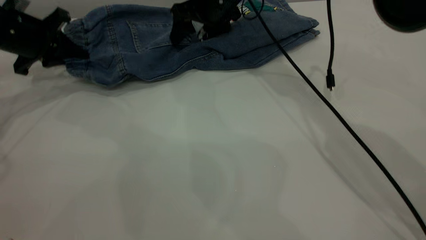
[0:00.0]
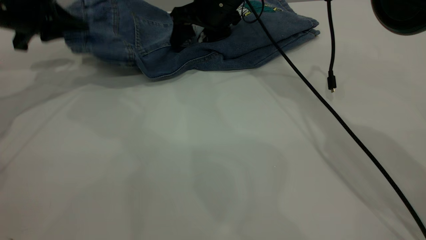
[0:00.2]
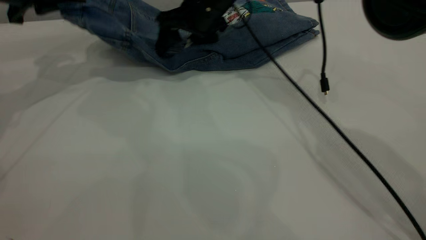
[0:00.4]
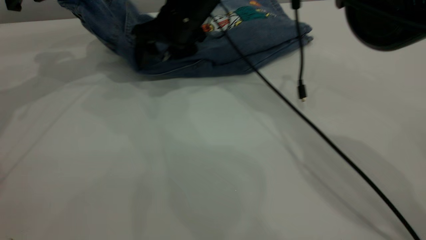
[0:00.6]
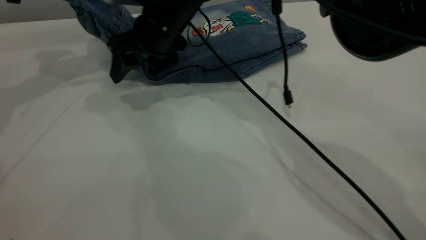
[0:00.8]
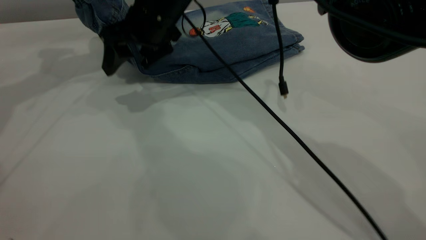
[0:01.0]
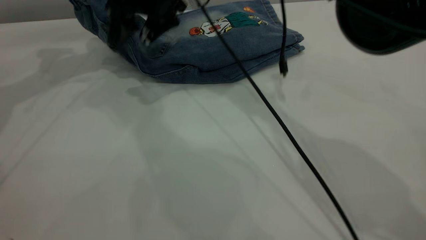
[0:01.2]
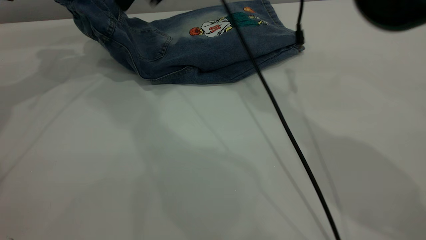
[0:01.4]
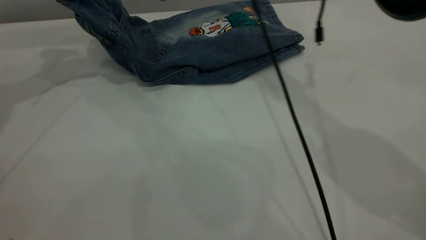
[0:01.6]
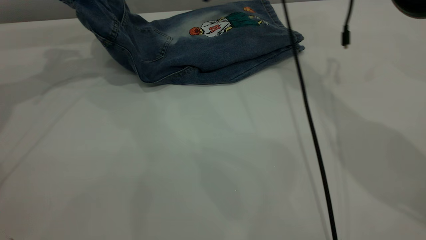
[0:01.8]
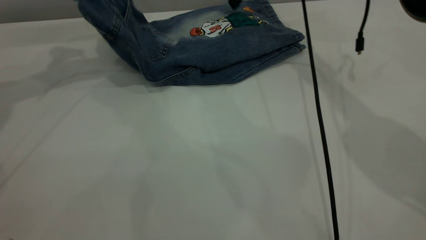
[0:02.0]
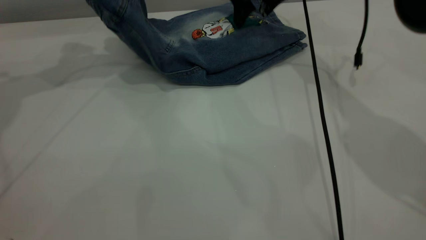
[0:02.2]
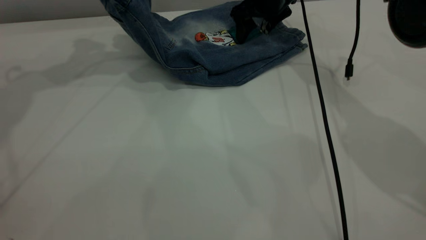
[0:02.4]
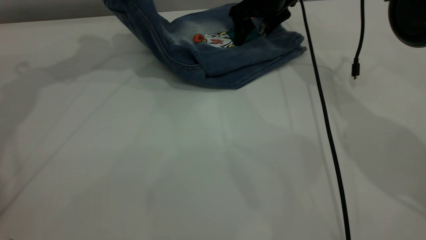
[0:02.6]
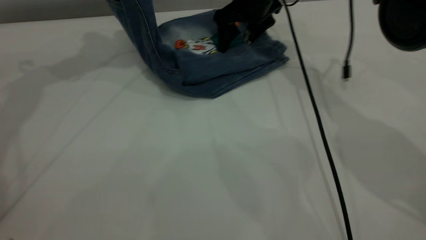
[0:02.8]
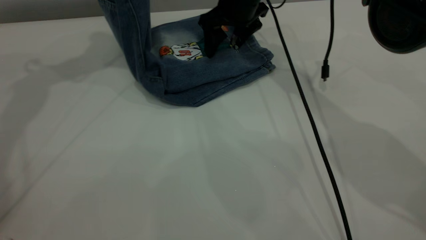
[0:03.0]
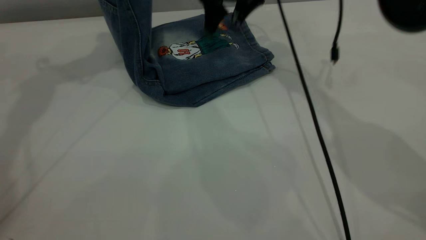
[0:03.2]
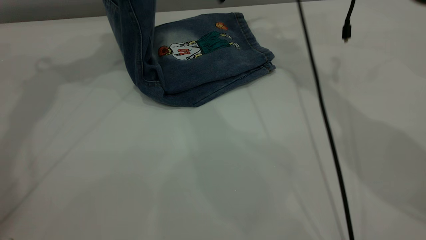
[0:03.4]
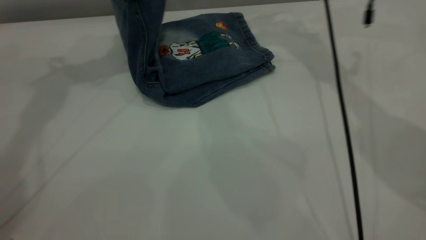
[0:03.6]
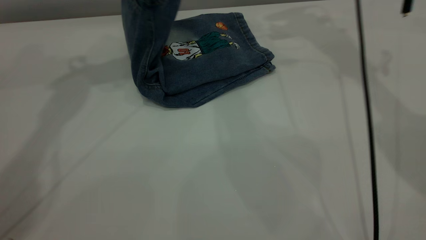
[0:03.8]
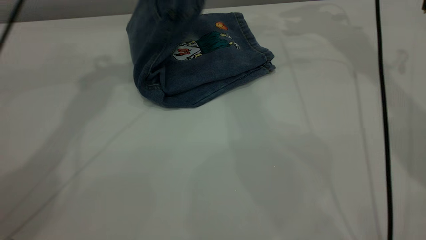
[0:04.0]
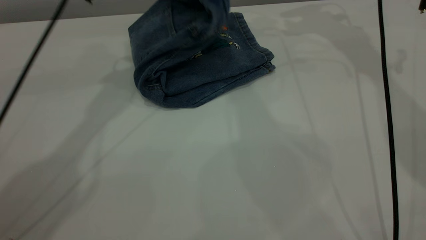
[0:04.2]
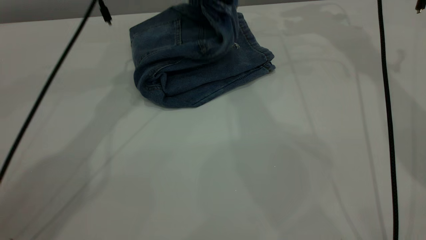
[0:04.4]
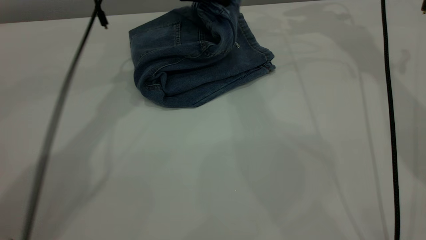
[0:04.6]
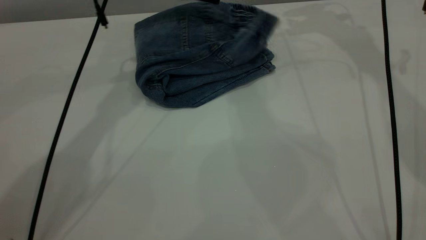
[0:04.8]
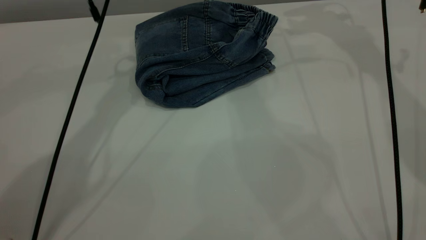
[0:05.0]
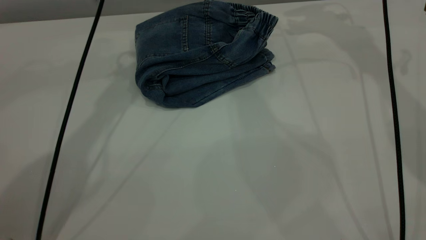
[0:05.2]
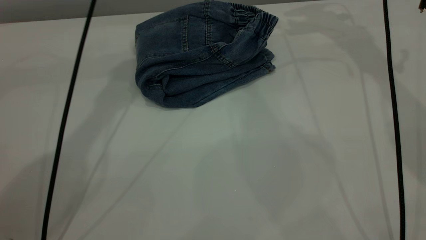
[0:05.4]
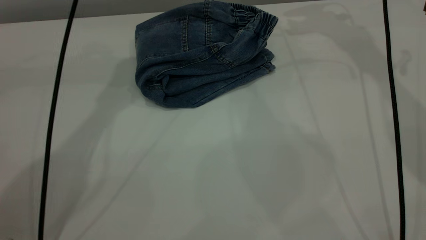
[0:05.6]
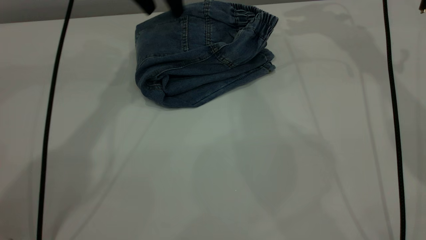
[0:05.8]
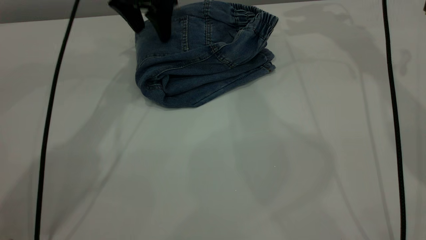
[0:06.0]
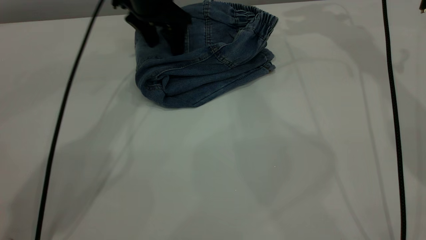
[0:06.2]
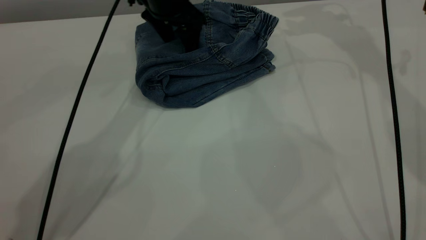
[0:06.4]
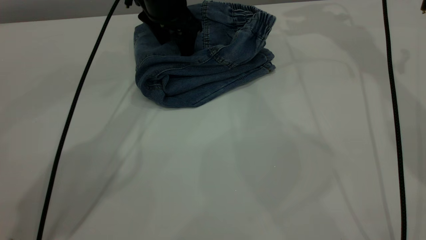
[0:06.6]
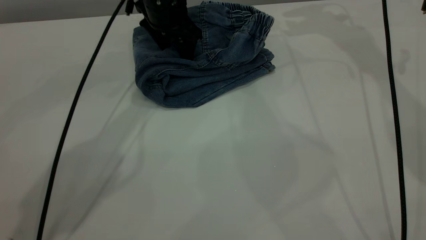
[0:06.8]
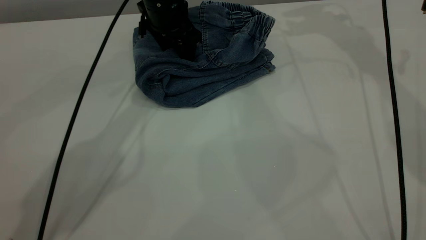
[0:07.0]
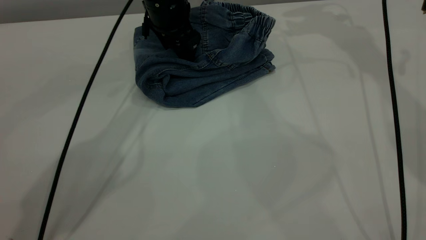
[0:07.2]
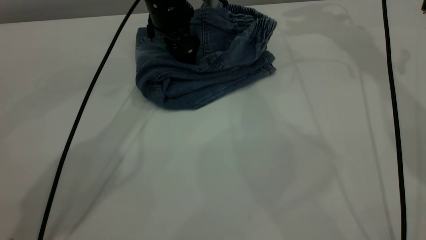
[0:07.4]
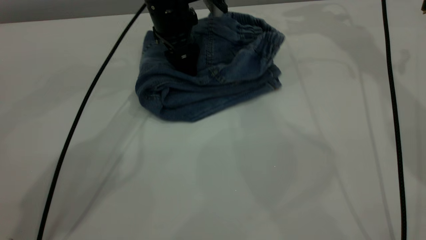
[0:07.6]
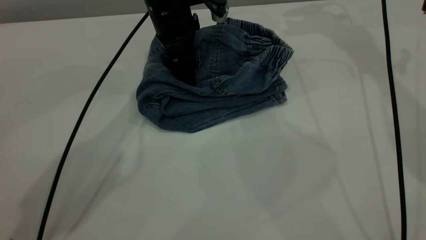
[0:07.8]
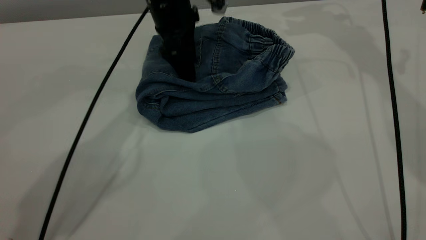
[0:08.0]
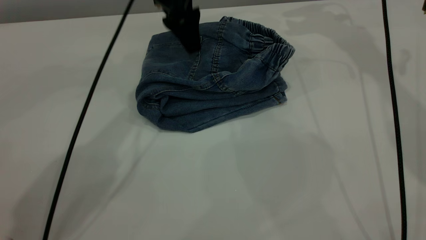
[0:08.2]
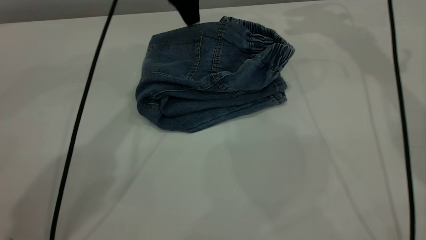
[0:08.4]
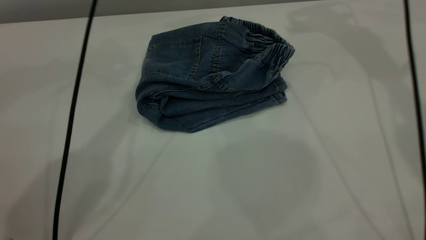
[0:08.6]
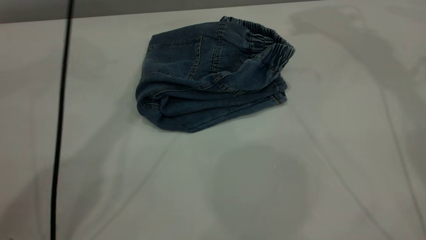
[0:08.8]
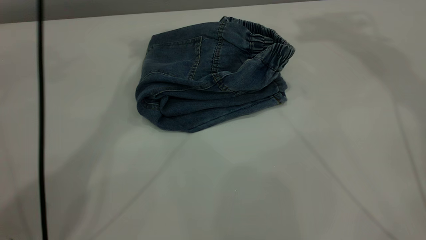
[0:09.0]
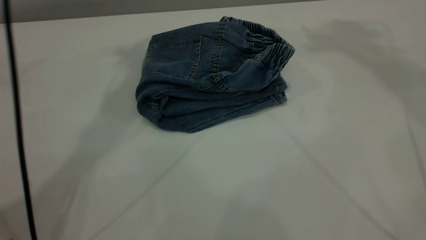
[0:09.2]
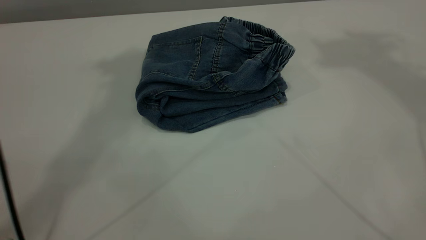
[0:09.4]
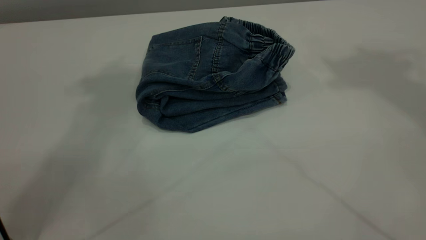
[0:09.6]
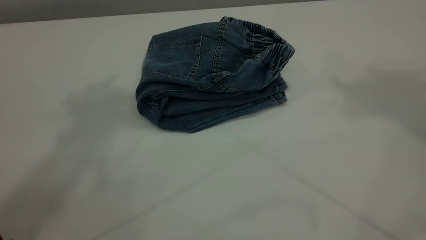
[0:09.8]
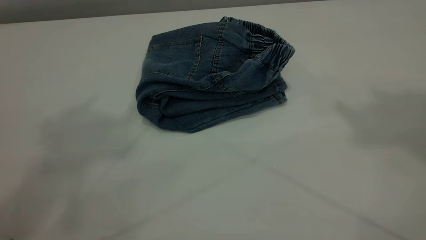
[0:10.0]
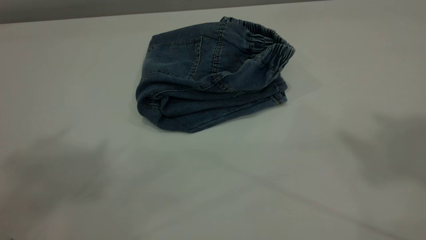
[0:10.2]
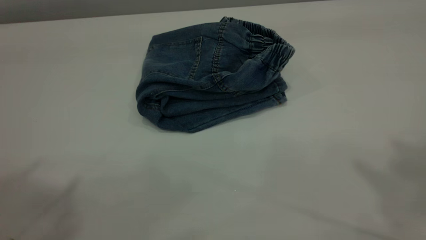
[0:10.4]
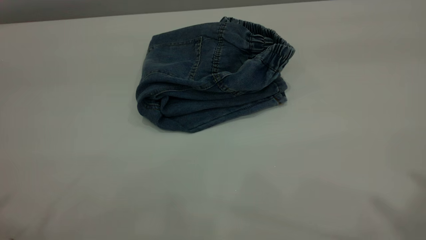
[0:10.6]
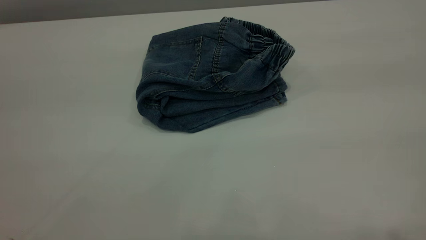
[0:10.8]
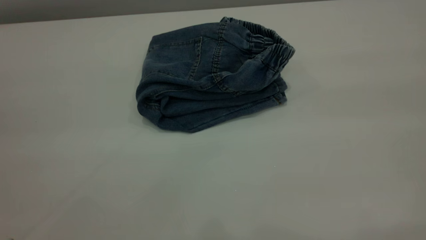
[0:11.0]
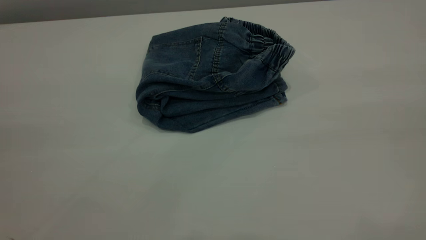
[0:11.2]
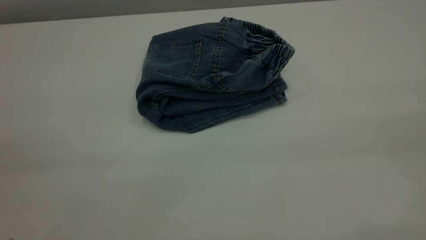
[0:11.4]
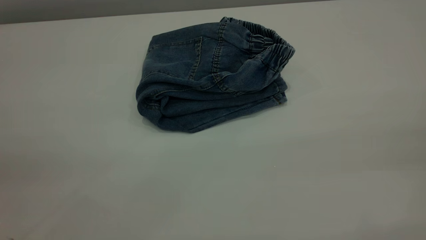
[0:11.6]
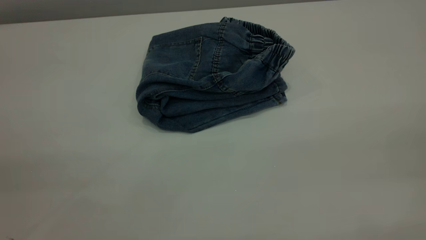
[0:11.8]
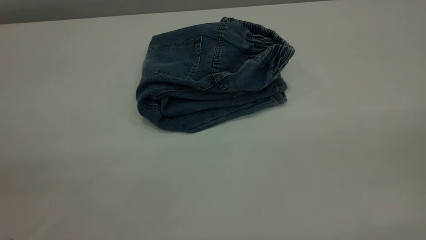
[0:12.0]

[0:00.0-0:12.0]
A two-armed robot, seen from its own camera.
Step, 0:00.0 to 0:05.4: Fold the pants from left to right.
0:00.0 to 0:01.6: The two grippers go some 10 cm upward.
0:01.6 to 0:03.0: The left gripper heads upward and to the right, covering about 10 cm; the right gripper heads downward, covering approximately 10 cm.
0:03.0 to 0:04.4: The left gripper shifts some 20 cm to the right and downward. The right gripper travels to the right and upward by roughly 20 cm.
0:04.4 to 0:06.0: The left gripper travels upward and back again, roughly 10 cm each way, and opens up.
0:06.0 to 0:07.6: The left gripper ends up about 5 cm from where it was.
0:07.6 to 0:09.0: The left gripper goes roughly 25 cm upward; the right gripper is displaced upward and backward by some 25 cm.
0:09.0 to 0:10.4: The grippers both shift backward by roughly 30 cm.
